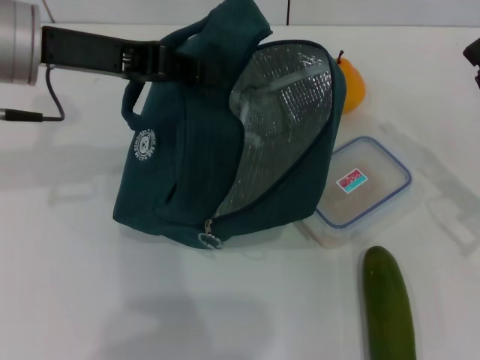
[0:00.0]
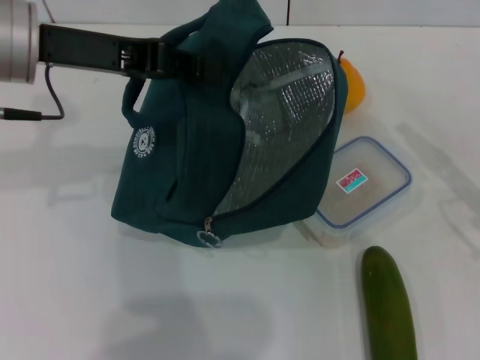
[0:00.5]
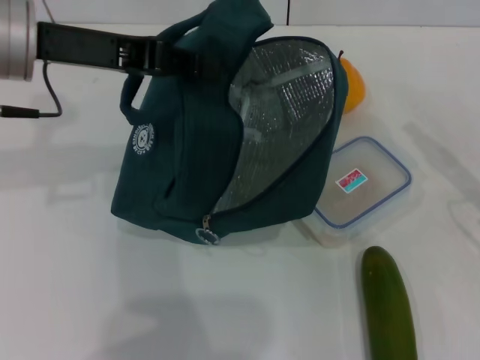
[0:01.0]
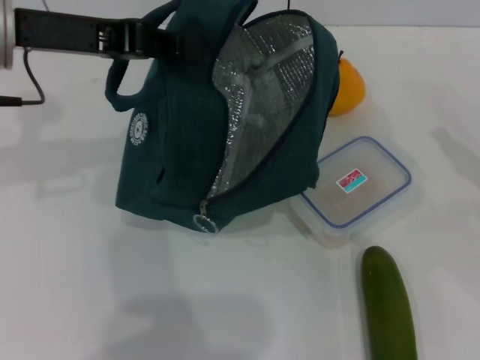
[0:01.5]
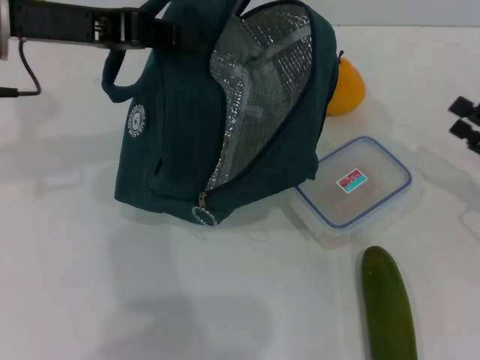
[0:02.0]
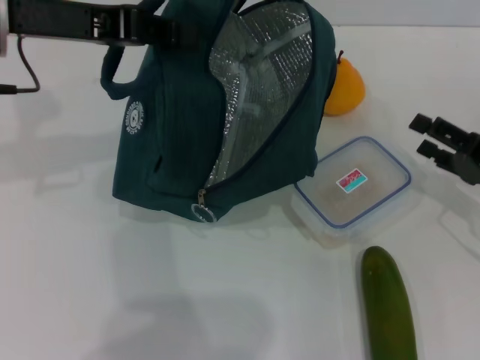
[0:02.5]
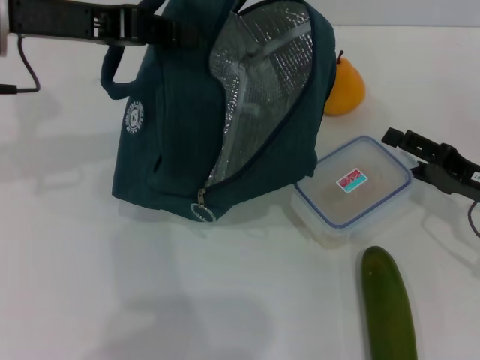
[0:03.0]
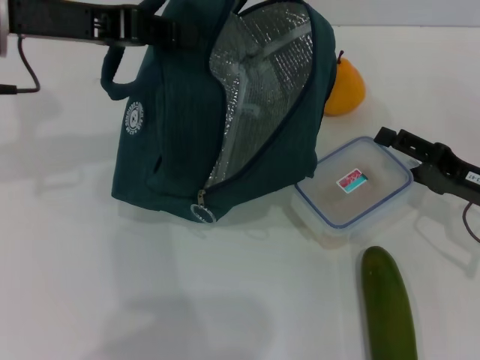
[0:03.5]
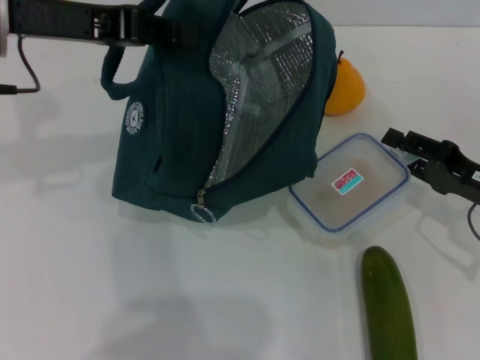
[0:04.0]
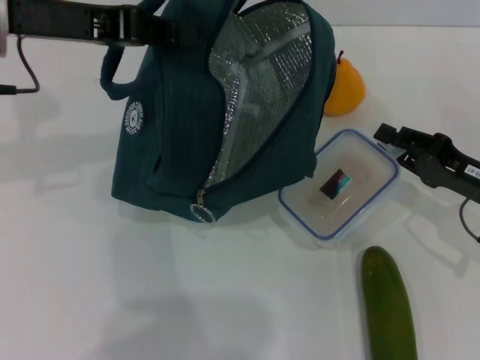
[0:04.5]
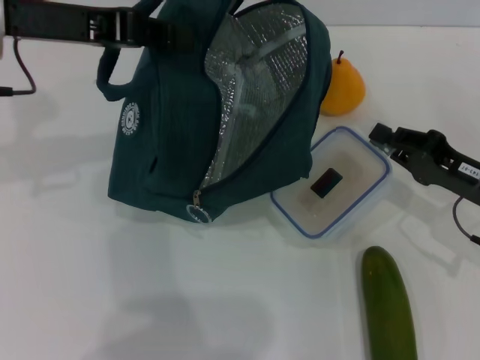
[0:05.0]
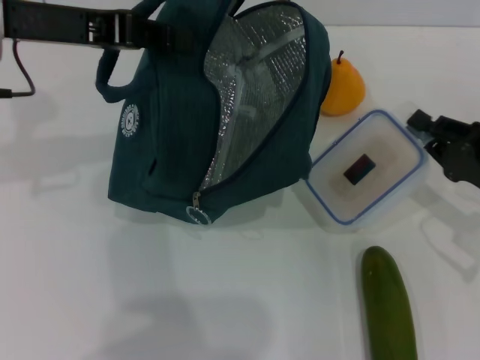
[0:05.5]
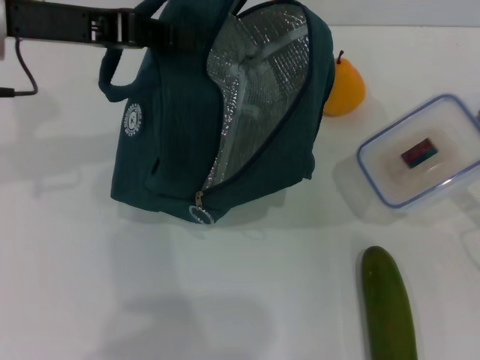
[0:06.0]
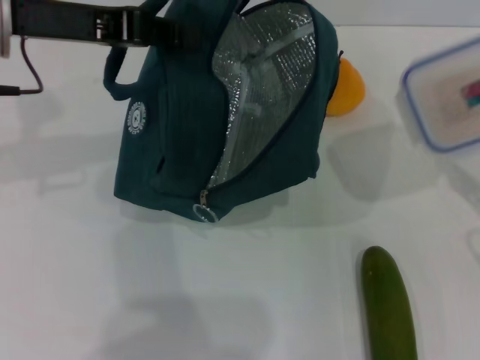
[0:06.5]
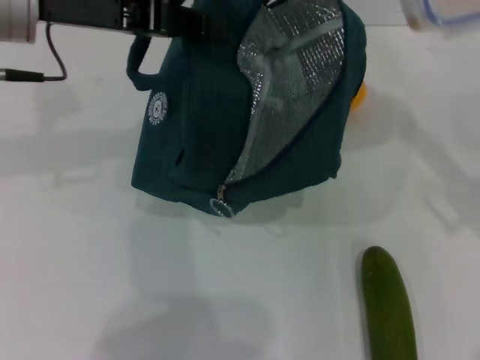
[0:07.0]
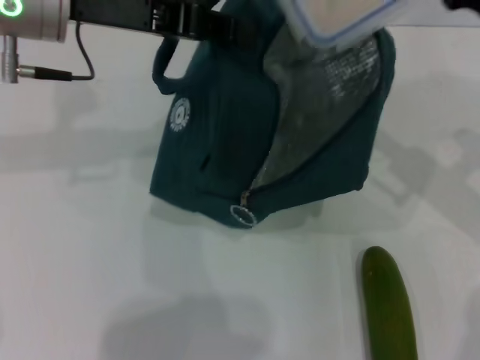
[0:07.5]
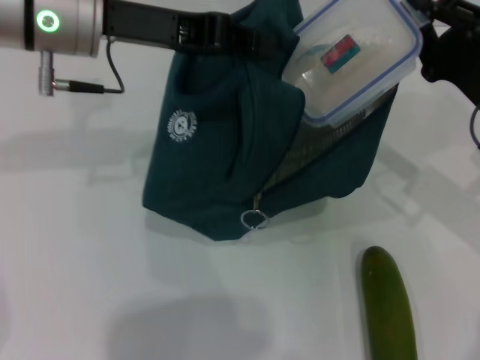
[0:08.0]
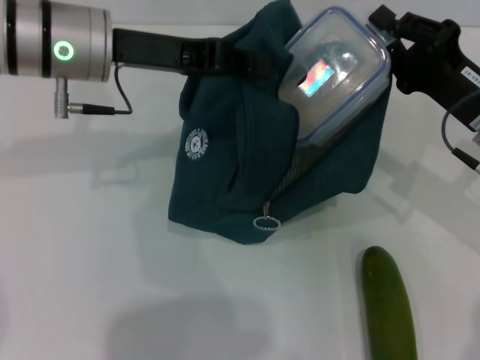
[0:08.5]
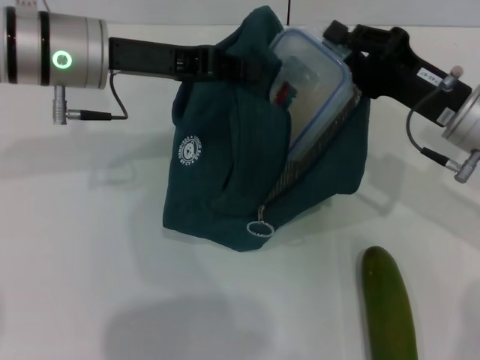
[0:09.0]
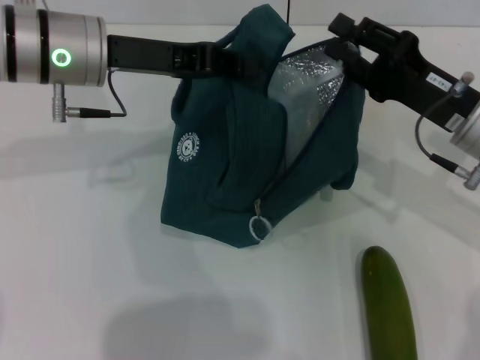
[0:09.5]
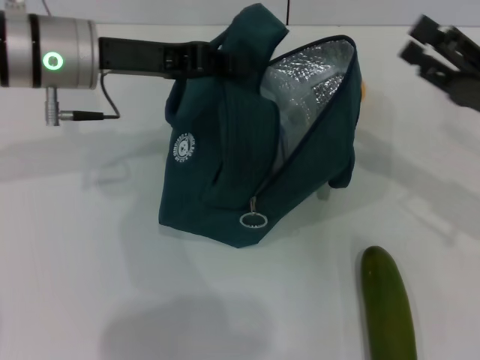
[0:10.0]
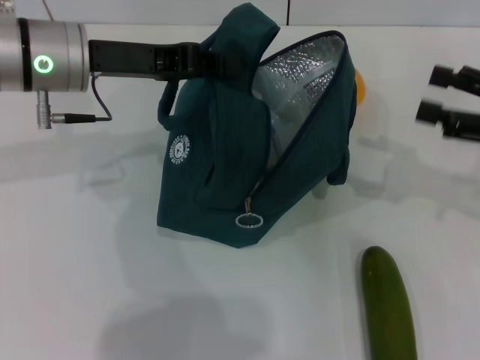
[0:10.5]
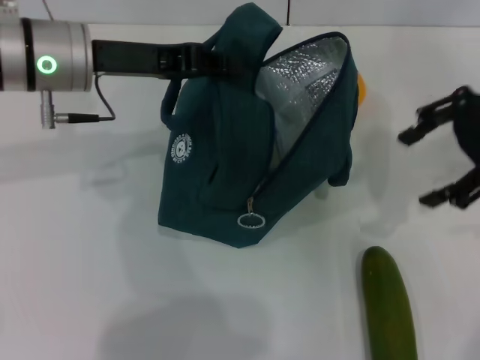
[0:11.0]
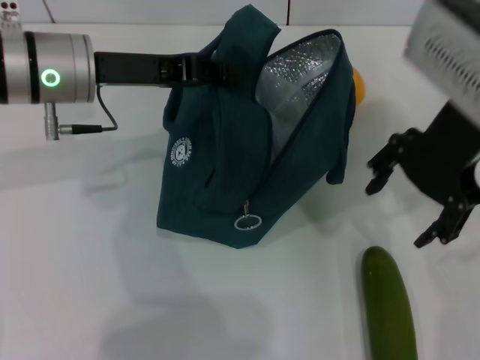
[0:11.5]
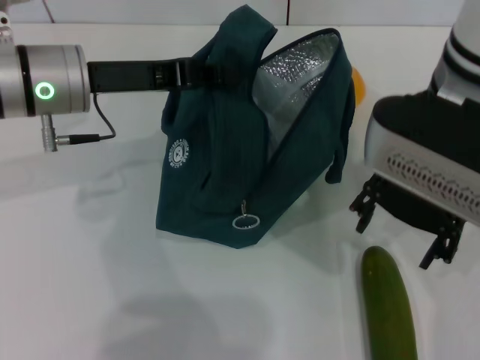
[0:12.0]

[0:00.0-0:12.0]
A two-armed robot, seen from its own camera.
Step, 0:00.0 to 0:09.5: Place the lunch box into the lunch bag with your right hand.
0:00.0 to 0:02.0: The right gripper opens.
0:02.0 to 0:04.0: The right gripper is displaced to the left by some 5 cm.
0:04.0 to 0:06.0: The right gripper ends up approximately 5 cm from where it was, and closes up.
0:06.0 to 0:08.0: The right gripper is displaced to the left, forward and upward by roughly 10 cm; the left gripper heads to the right, covering roughly 5 cm.
0:08.0 to 0:10.0: The right gripper opens its fingers. The left gripper ends up approximately 5 cm from where it was.
0:10.0 to 0:12.0: The right gripper travels to the left and upward by roughly 20 cm.

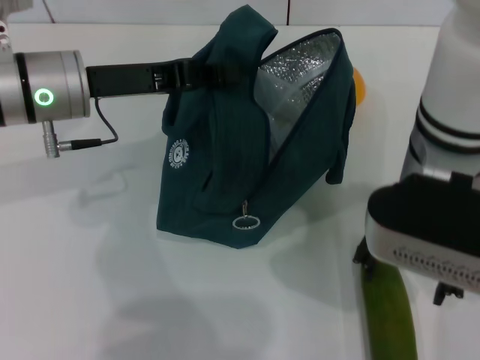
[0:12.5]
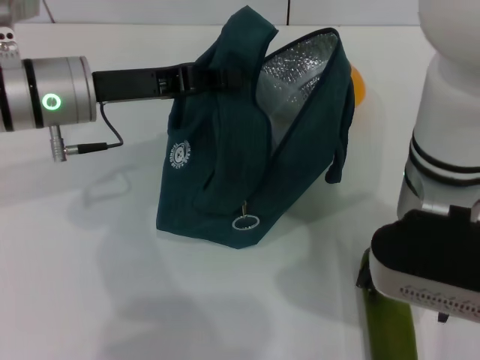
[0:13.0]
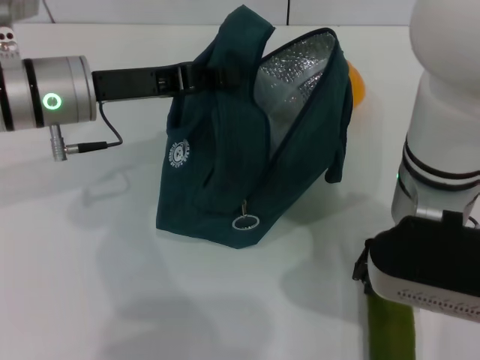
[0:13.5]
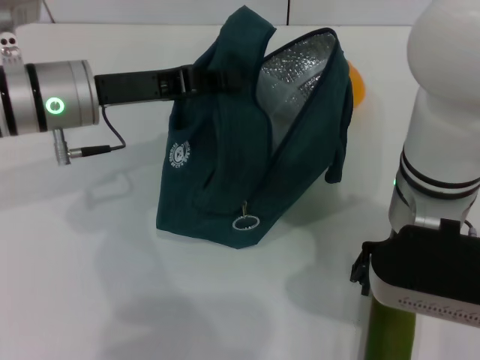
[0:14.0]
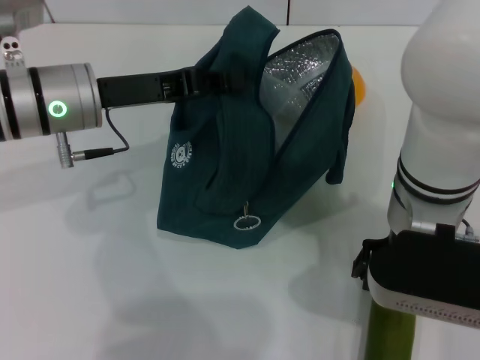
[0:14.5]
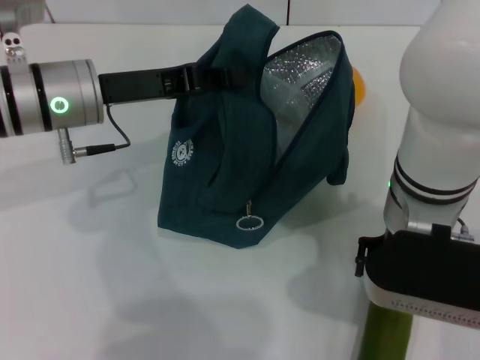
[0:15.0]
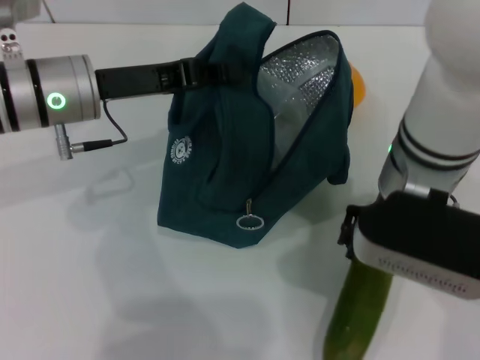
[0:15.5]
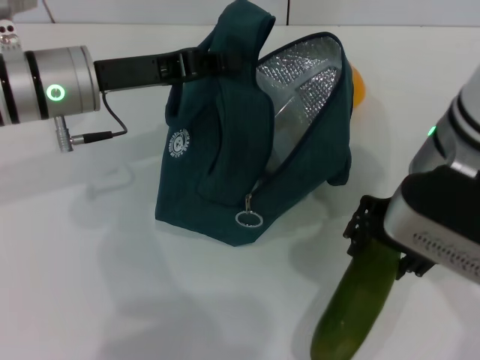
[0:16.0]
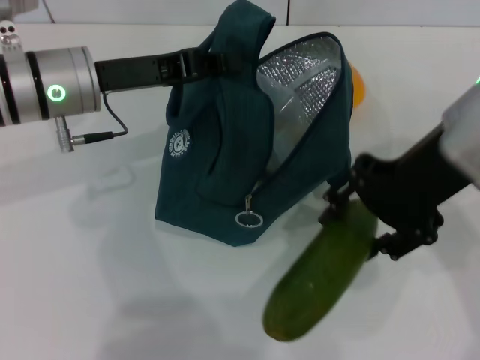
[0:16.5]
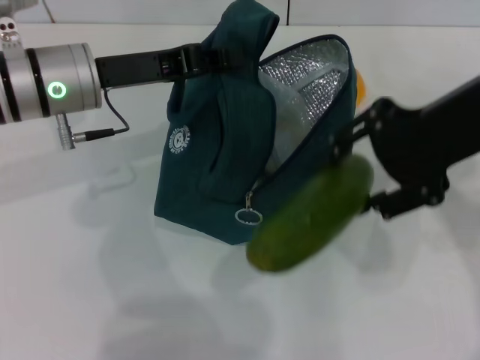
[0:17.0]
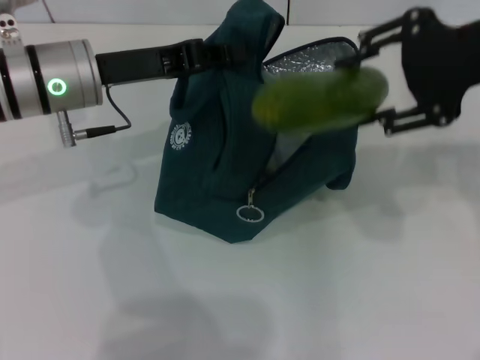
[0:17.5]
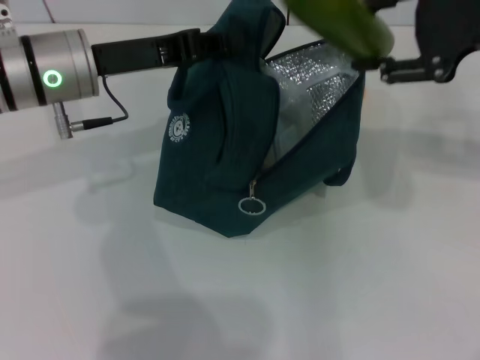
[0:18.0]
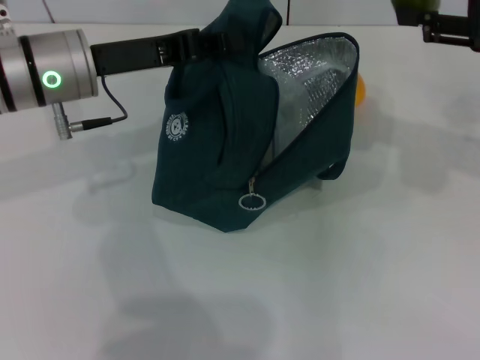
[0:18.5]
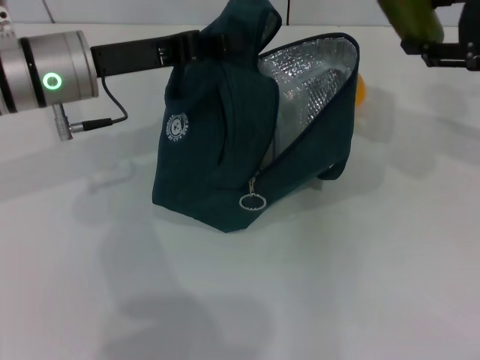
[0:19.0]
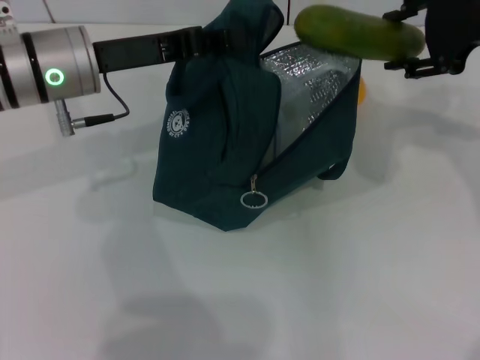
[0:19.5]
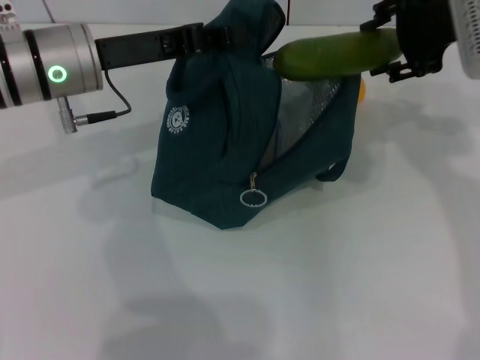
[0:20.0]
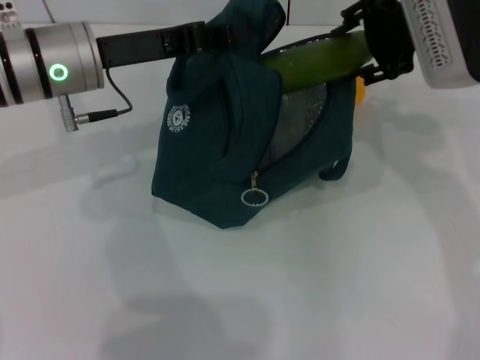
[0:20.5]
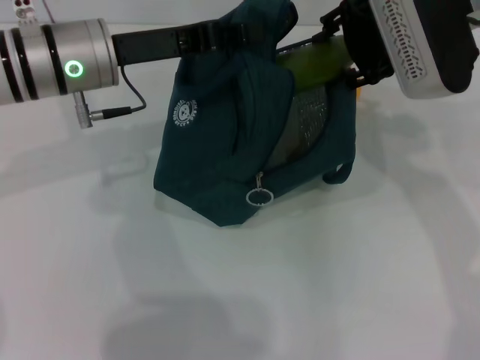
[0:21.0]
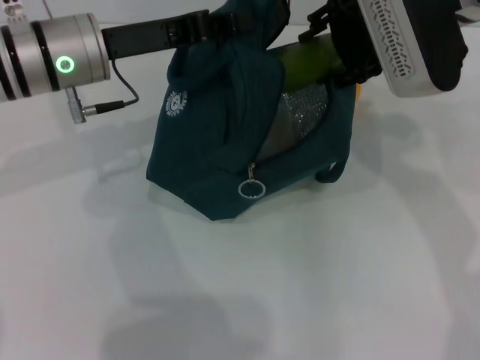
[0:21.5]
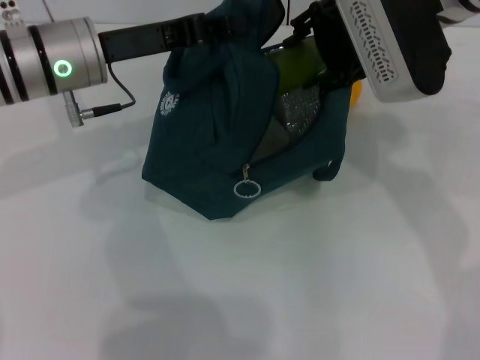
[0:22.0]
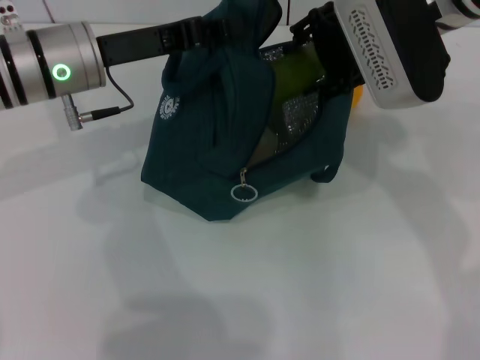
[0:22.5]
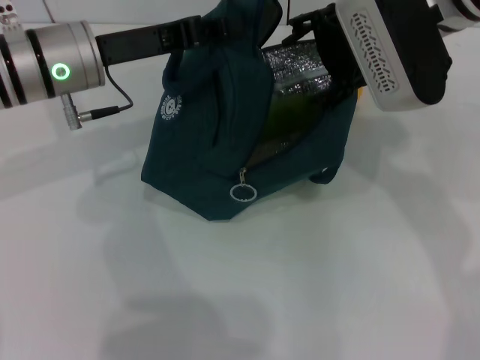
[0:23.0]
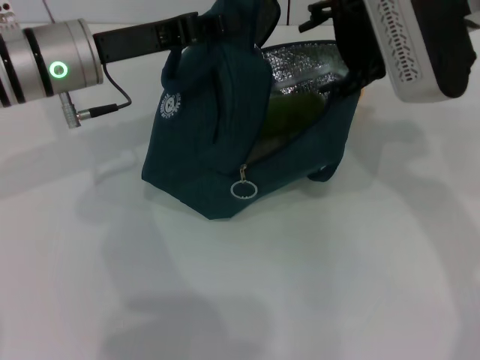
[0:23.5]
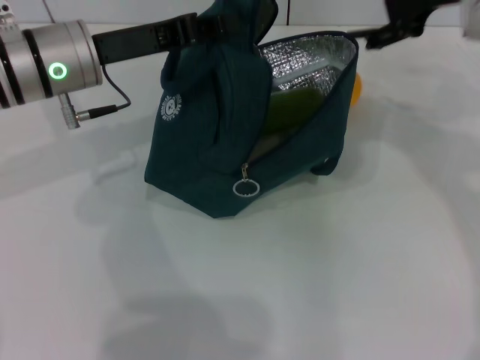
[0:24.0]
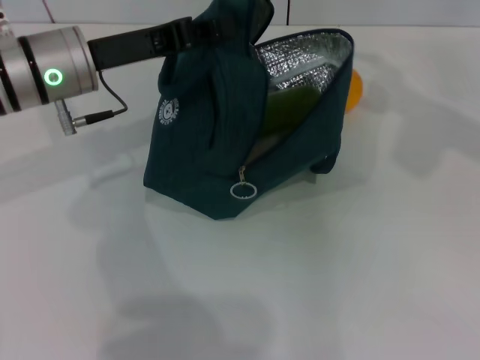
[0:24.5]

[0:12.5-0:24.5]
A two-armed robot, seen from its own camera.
Step, 0:12.5 to 0:14.5: Pick up the cucumber with your right hand.
Step, 0:15.0 to 0:23.0: Put the cucumber into the lunch bag with your right hand.
0:14.5 to 0:16.5: The right gripper is displaced upward and to the right by roughly 10 cm.
0:16.5 to 0:18.5: The right gripper heads to the right and forward, covering approximately 15 cm.
0:18.5 to 0:20.5: The right gripper is displaced to the left and forward by some 15 cm.
0:20.5 to 0:22.5: The grippers stay close to where they were, moving slightly.
0:22.5 to 0:24.5: The right gripper goes approximately 20 cm to the right.

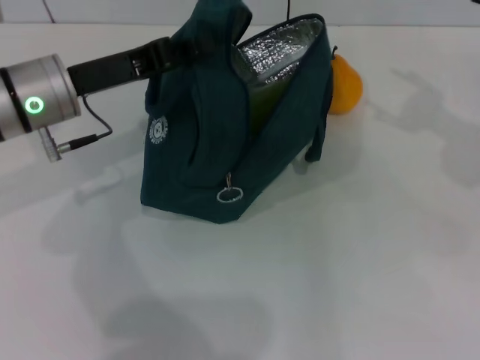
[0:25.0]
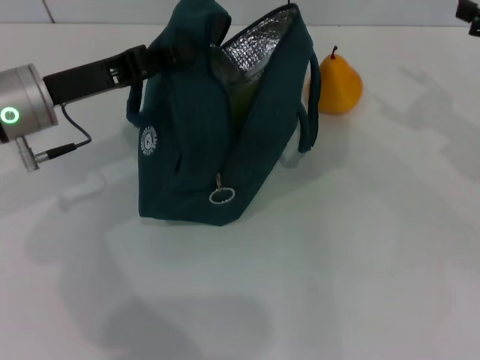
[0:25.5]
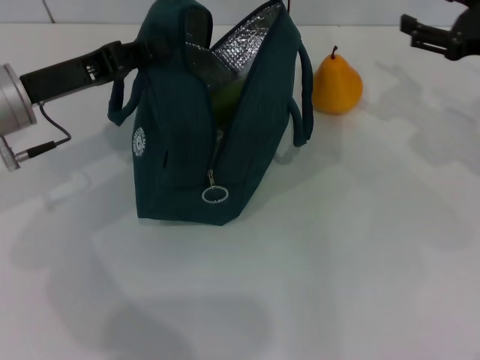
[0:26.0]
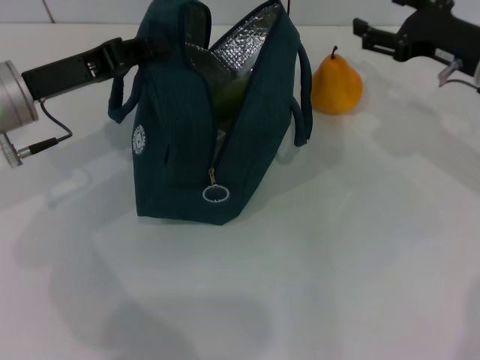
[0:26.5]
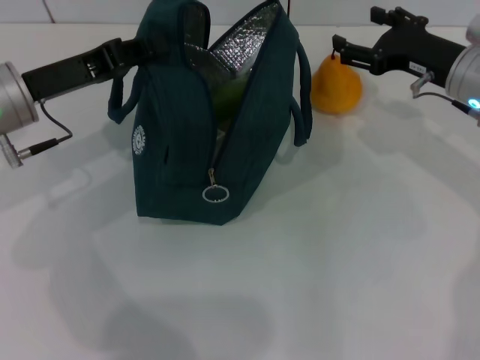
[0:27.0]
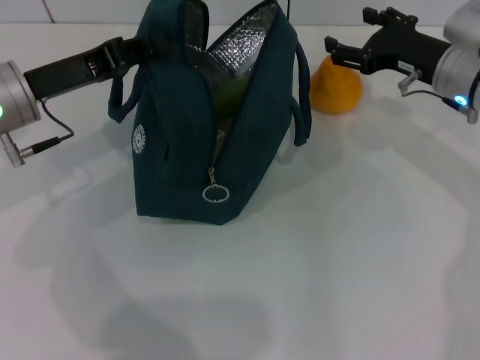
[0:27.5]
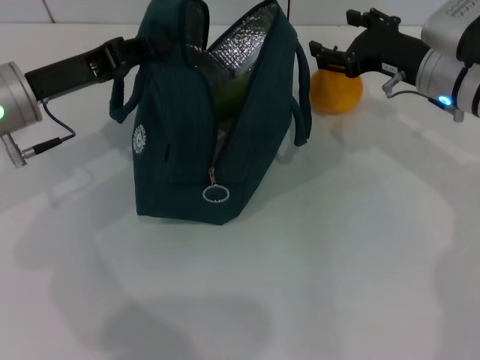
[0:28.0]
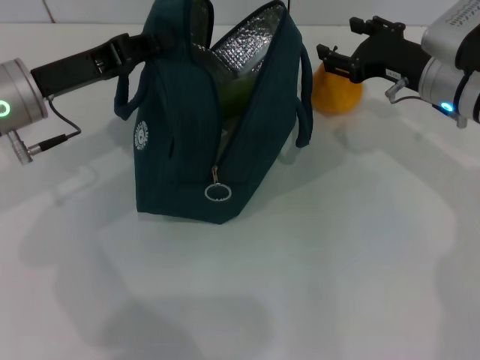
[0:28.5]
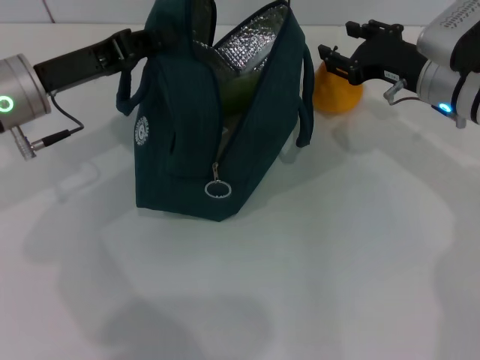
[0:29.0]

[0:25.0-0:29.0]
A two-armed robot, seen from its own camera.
0:25.0 to 0:27.0: The right gripper moves to the left, downward and forward, about 20 cm.
0:27.0 to 0:29.0: The grippers move only a little.
